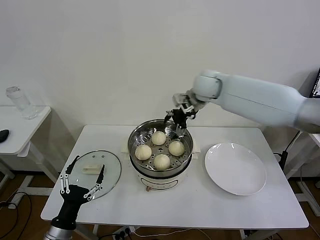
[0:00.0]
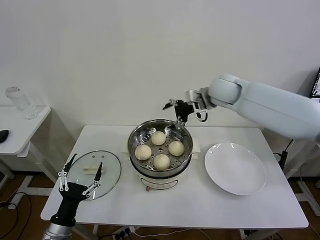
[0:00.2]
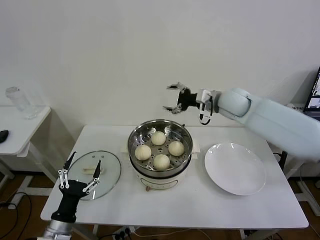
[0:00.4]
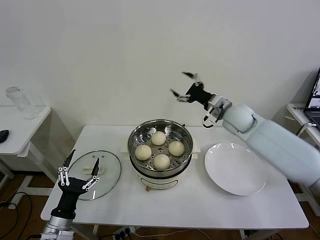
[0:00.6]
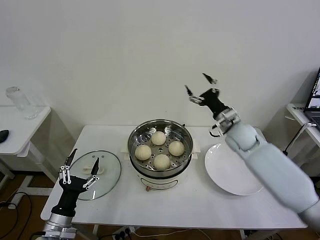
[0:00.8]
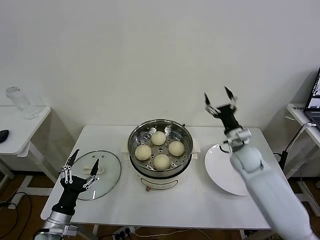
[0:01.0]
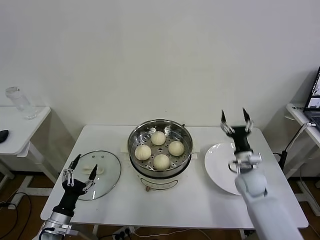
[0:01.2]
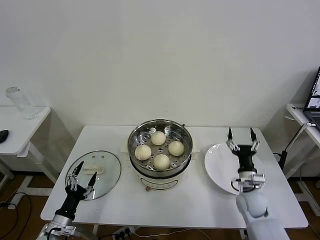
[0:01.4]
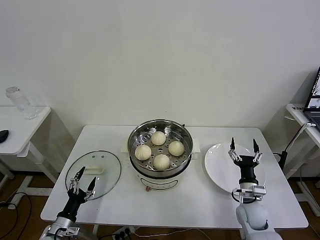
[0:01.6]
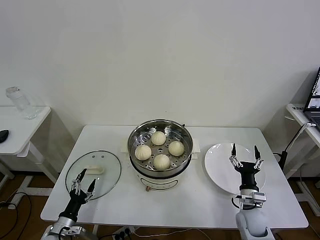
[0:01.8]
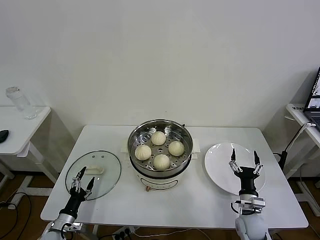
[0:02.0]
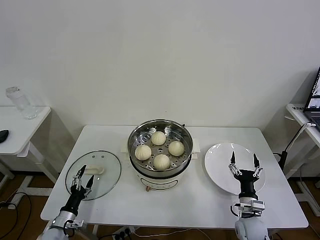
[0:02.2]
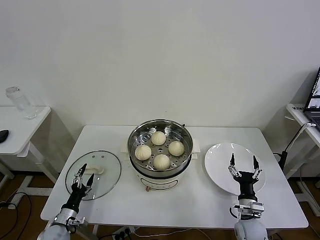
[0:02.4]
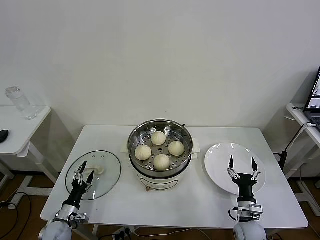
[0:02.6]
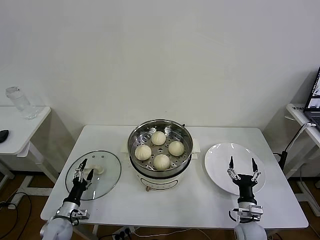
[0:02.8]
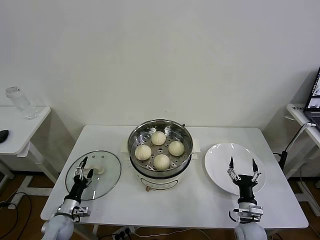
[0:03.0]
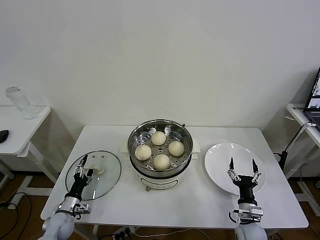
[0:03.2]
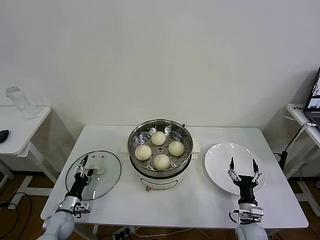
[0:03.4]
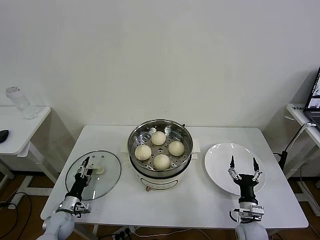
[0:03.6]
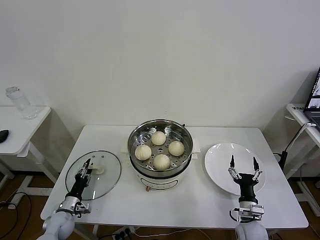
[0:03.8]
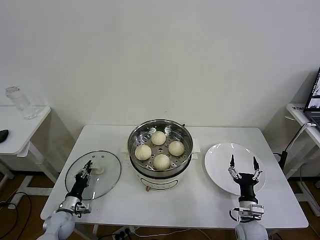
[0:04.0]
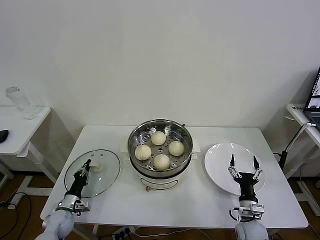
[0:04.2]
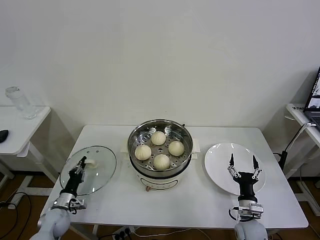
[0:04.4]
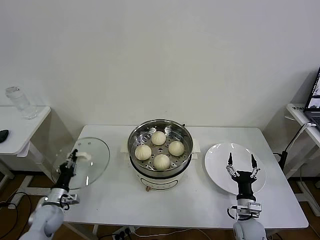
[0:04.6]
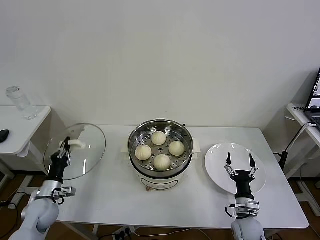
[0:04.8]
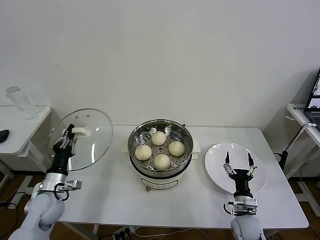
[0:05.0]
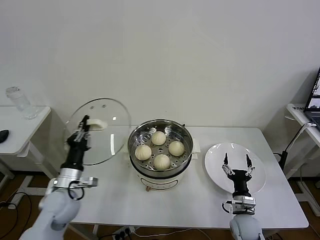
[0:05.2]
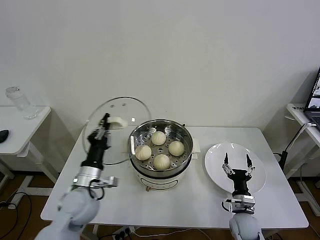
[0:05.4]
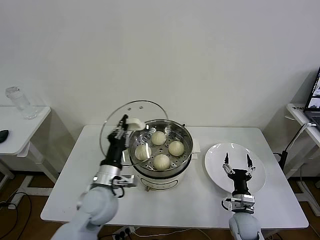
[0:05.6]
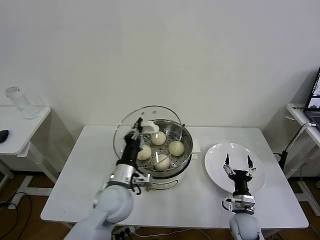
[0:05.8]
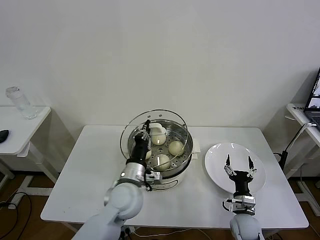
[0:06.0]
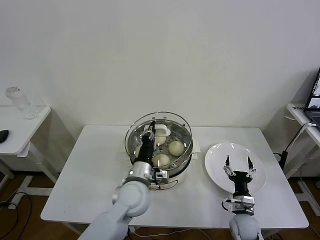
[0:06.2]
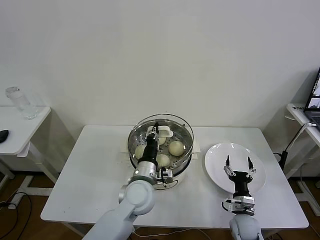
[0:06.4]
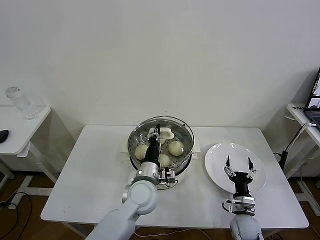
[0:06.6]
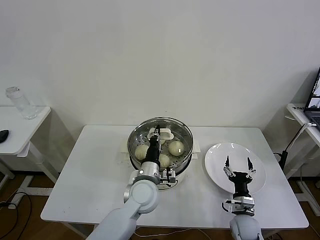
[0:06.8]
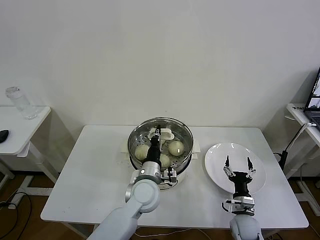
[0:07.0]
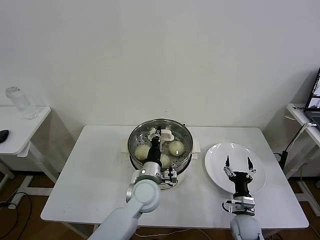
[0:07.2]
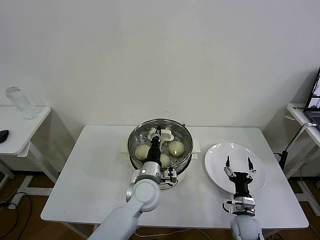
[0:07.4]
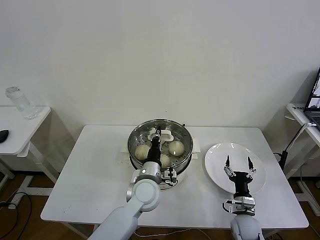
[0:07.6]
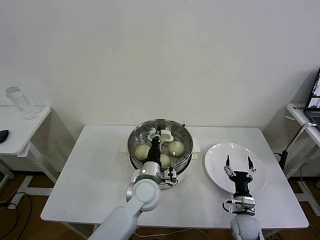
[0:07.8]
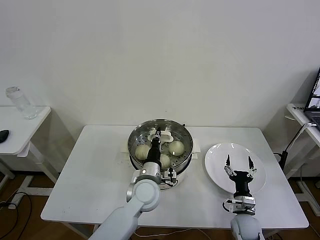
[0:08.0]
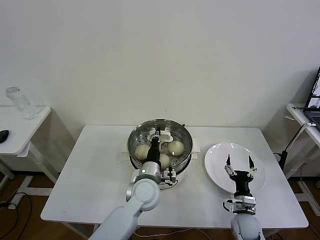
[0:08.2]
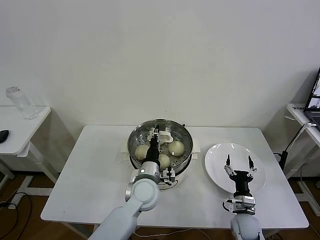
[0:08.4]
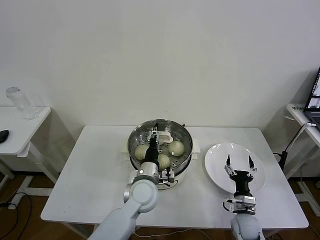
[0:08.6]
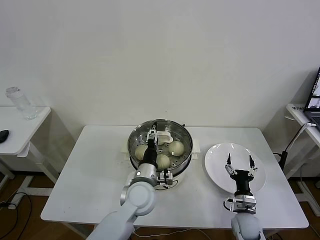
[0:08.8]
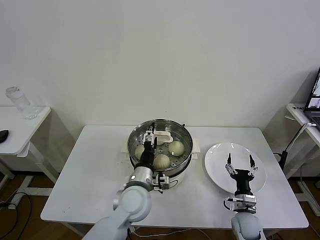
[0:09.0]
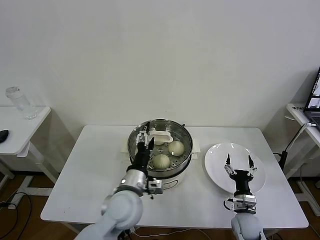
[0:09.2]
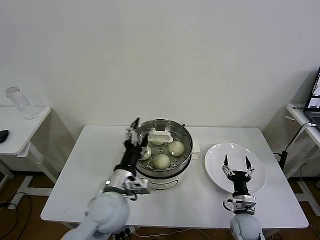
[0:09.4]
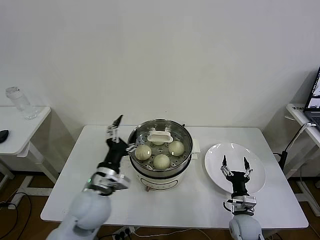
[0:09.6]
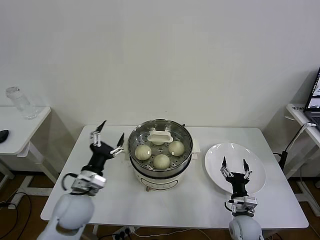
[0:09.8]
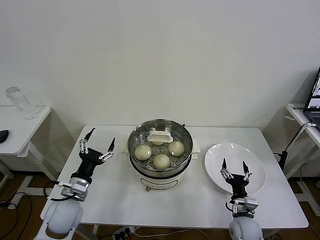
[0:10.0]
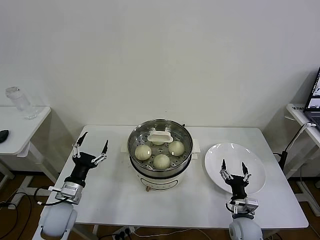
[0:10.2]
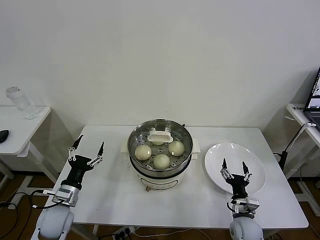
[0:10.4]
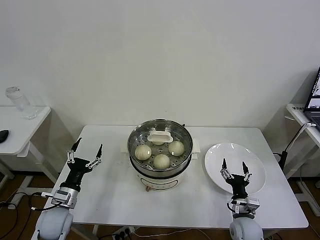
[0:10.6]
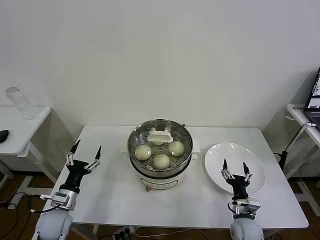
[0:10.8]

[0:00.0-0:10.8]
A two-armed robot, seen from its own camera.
Task of the whole recording: take steamed baozi put them in steamer then cover it.
Step, 0:00.0 to 0:04.2: Grasp the pot lid with left gripper.
Step, 0:04.4 to 0:09.0: Place the pot lid on the steamer with left gripper.
0:00.0 to 0:01.6: The right gripper shifts about 50 cm downward, backward and to the right. The left gripper travels downward and to the left by about 10 cm.
0:01.6 to 0:03.0: The left gripper is displaced forward and downward by roughly 10 cm, while the right gripper moves backward and downward, some 10 cm.
0:03.0 to 0:04.6: The left gripper closes.
0:04.6 to 0:06.2: The left gripper shifts some 35 cm to the right and upward.
0:06.2 to 0:07.8: The left gripper changes place by about 5 cm.
0:07.8 to 0:09.2: The left gripper shifts by about 10 cm, and opens.
0:09.2 to 0:10.8: The left gripper travels to the left and downward by roughly 25 cm.

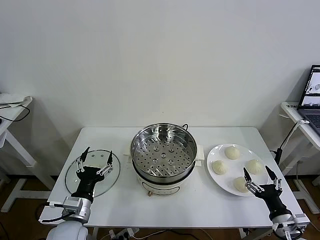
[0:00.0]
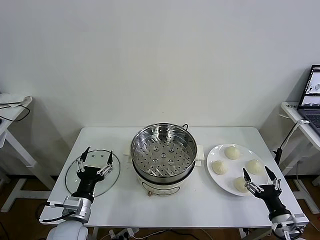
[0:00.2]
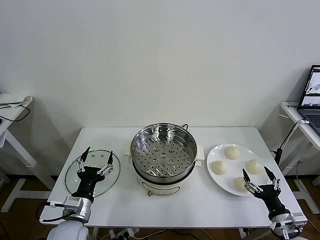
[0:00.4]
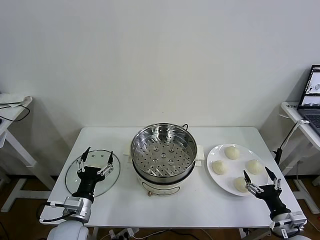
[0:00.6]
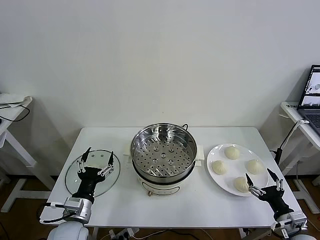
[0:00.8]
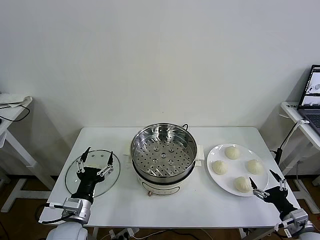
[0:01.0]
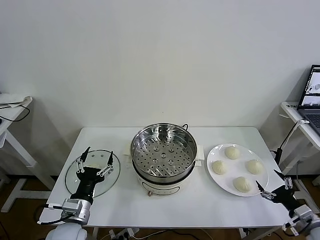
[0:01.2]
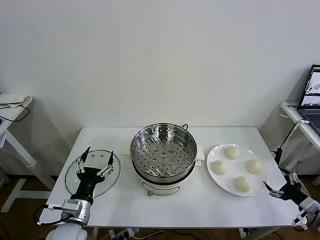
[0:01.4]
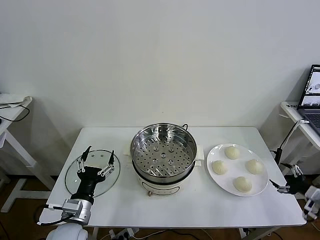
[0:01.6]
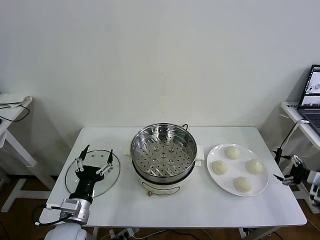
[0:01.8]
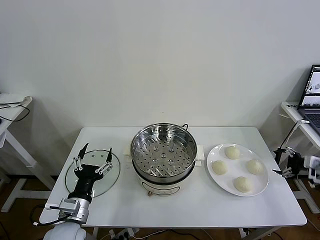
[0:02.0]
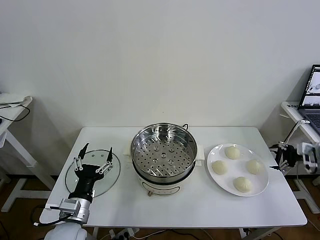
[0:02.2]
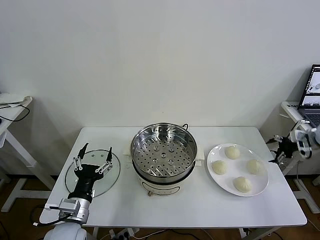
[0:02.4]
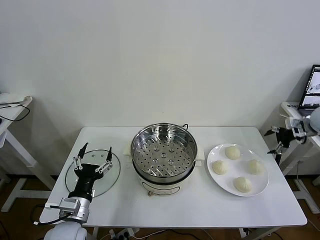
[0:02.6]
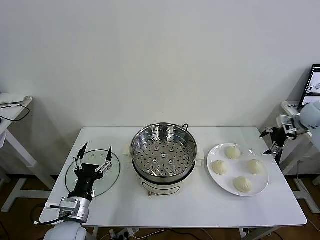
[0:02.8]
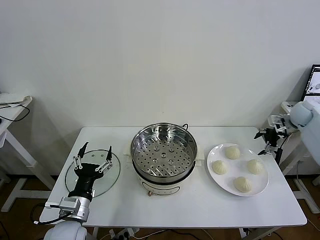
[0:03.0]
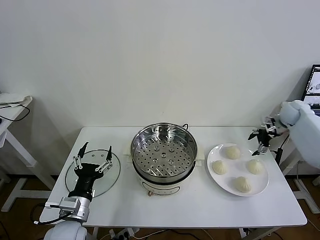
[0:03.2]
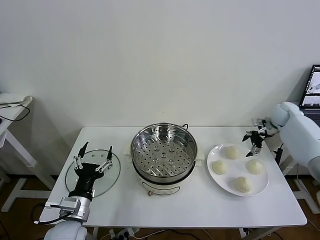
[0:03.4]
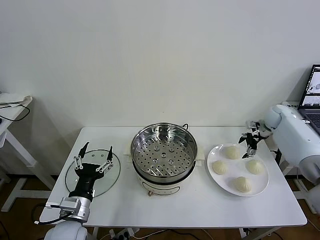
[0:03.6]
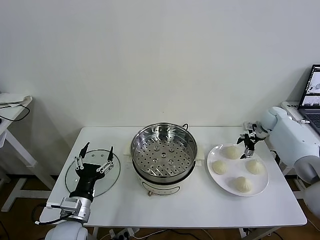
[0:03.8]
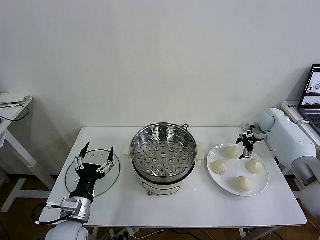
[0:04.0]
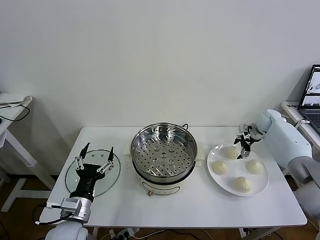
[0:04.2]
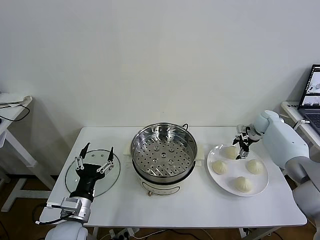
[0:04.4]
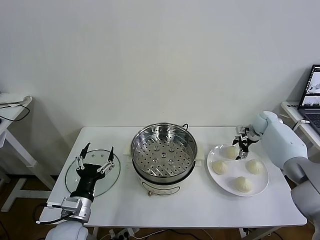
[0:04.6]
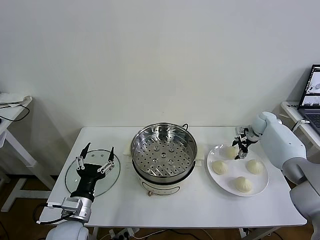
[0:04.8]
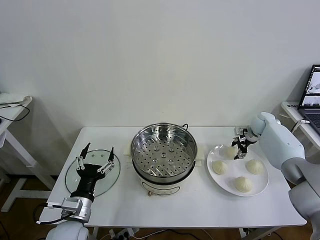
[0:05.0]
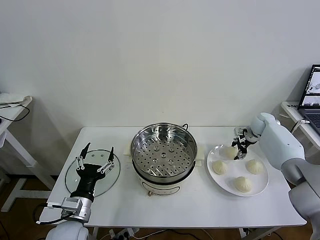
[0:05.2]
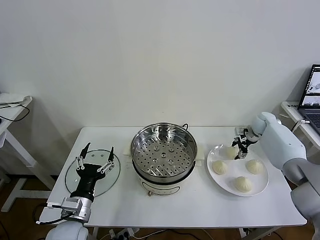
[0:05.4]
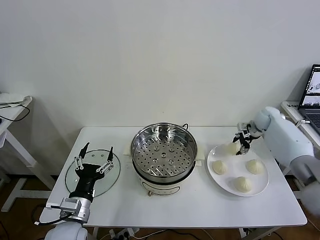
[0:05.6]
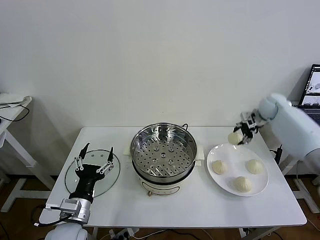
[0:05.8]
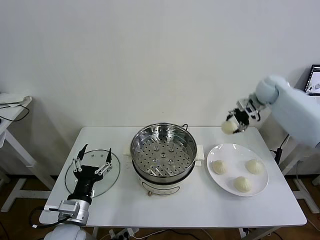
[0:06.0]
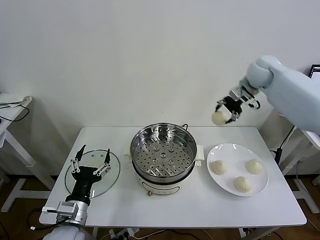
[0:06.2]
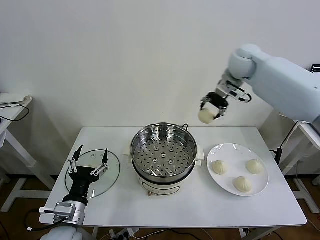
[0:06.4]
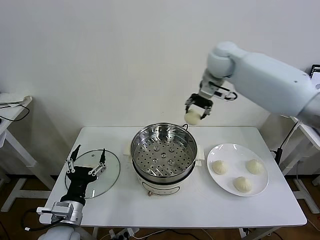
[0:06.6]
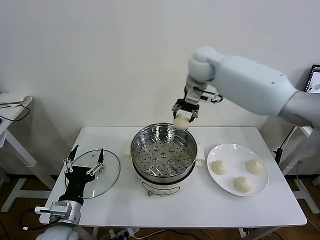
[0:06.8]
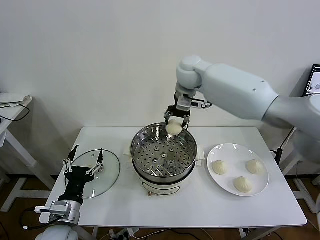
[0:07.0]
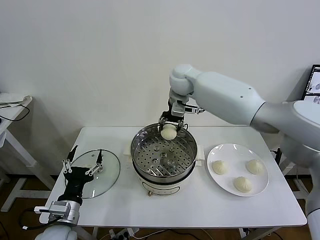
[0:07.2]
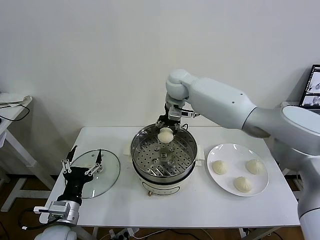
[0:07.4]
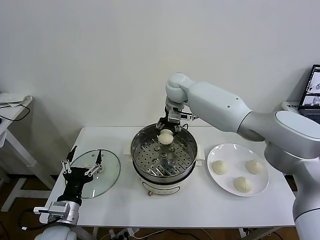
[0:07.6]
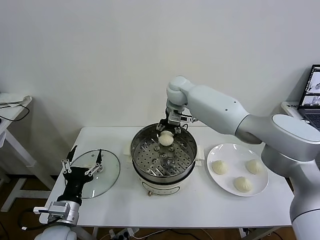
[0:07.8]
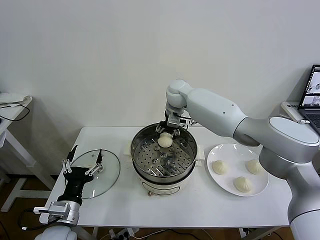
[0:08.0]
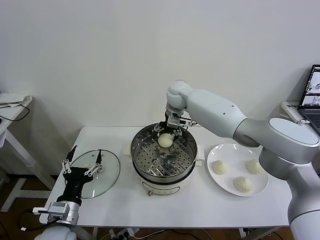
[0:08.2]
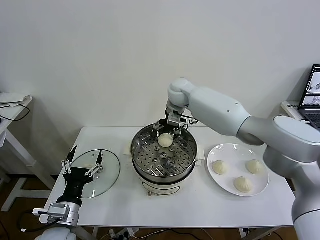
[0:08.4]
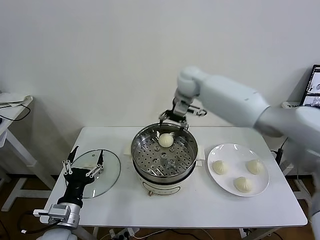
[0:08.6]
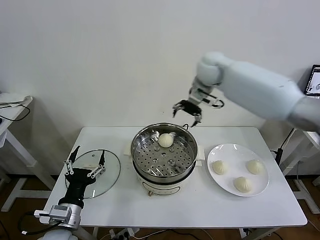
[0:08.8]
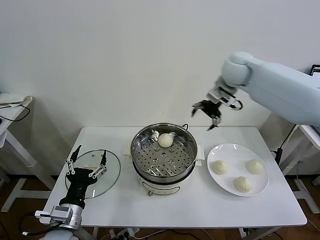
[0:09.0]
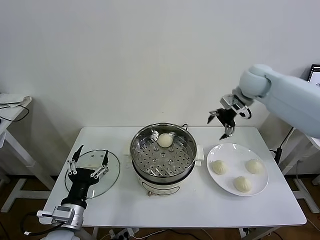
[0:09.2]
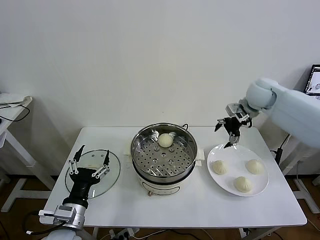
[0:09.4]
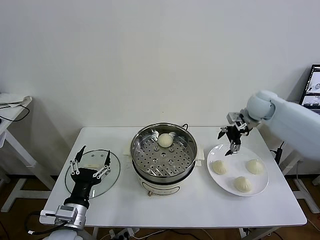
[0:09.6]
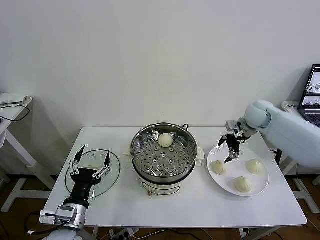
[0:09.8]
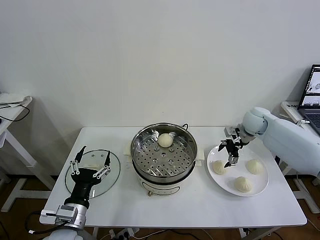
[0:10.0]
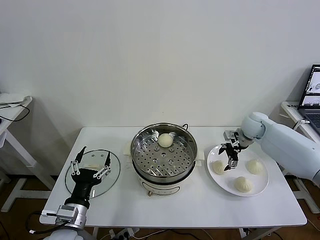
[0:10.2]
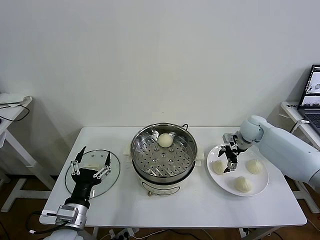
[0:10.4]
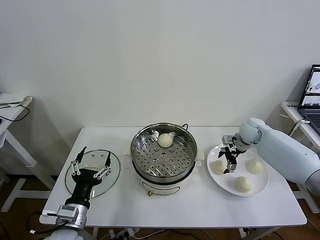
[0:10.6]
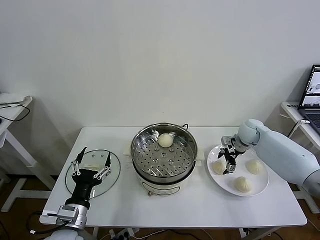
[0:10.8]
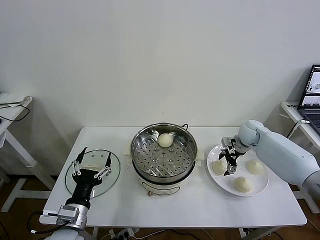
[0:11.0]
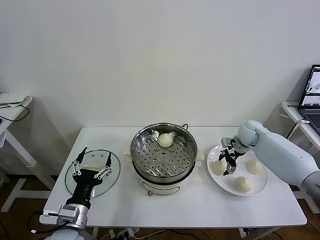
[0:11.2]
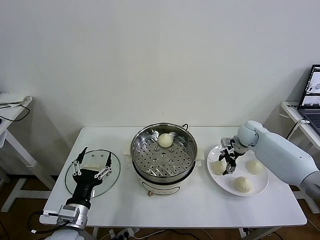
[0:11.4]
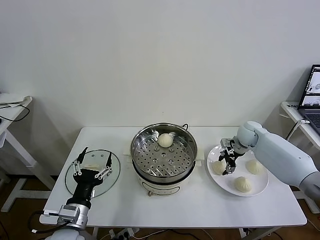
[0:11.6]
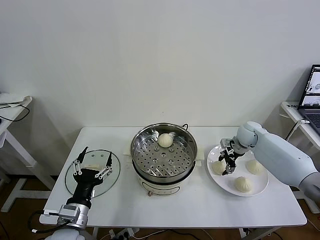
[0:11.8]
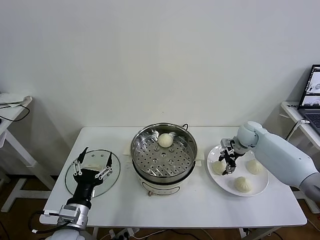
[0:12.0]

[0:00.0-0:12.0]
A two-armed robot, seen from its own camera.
Task of the whole recording: take steamed baozi put them in steamer then cover it.
Step, 0:00.0 to 0:05.2: Grasp the baozi in the plate with right gripper.
Step, 0:05.4 to 0:08.4: Place the baozi on the steamer with right gripper.
0:01.6 to 0:03.0: The right gripper is displaced forward by about 30 cm.
0:03.0 to 0:04.4: The right gripper goes about 10 cm downward and to the left.
0:04.4 to 0:06.0: The right gripper is displaced upward and to the left by approximately 20 cm, and closes.
0:06.0 to 0:07.6: The right gripper is displaced to the left by about 30 cm.
0:07.6 to 0:09.0: The right gripper goes roughly 20 cm to the right and upward, and opens up.
0:09.0 to 0:10.4: The right gripper goes roughly 25 cm downward and to the right.
0:10.4 to 0:12.0: The right gripper closes.
